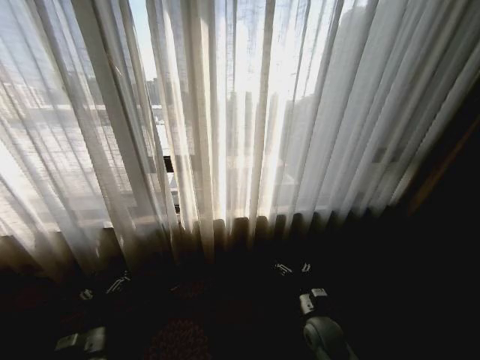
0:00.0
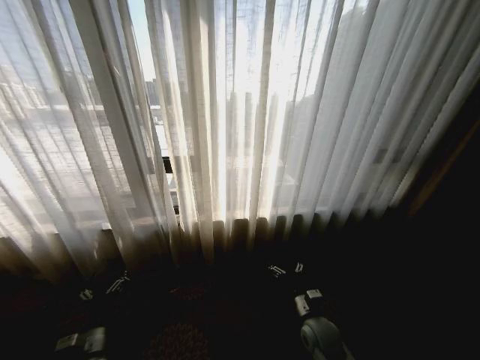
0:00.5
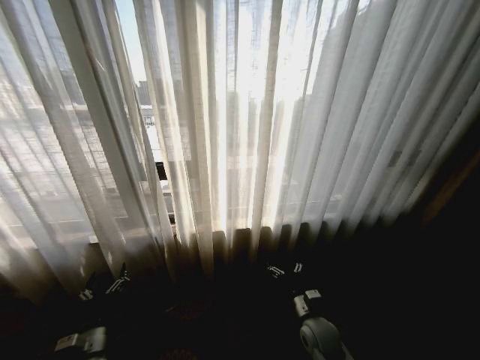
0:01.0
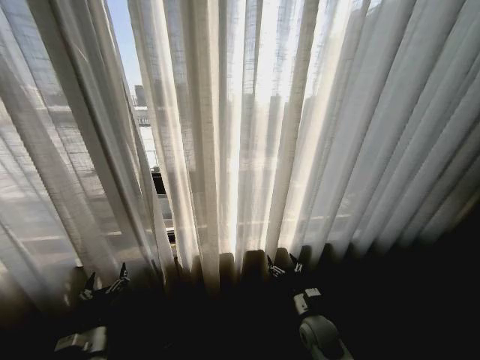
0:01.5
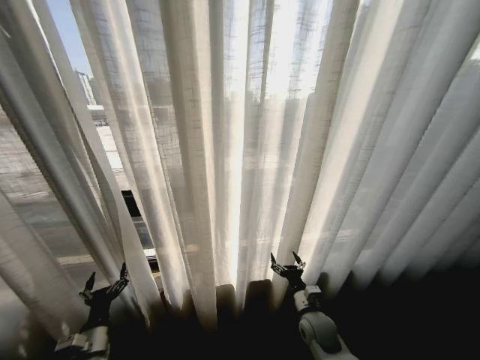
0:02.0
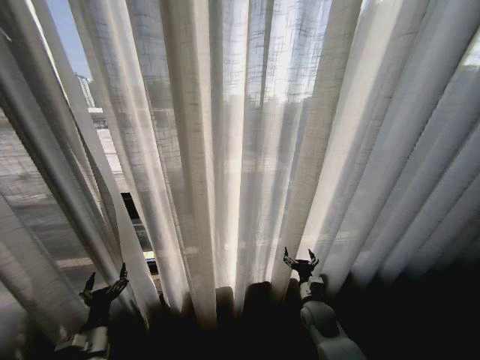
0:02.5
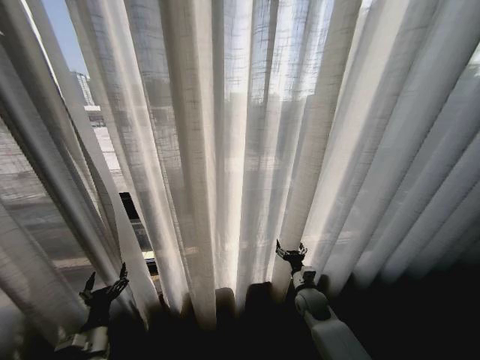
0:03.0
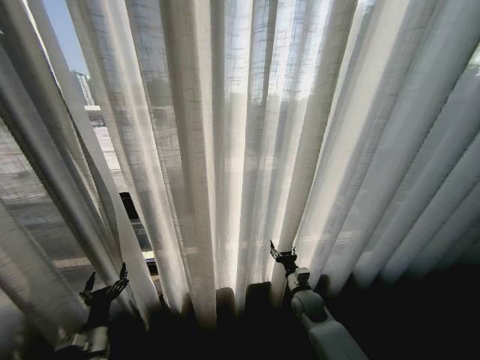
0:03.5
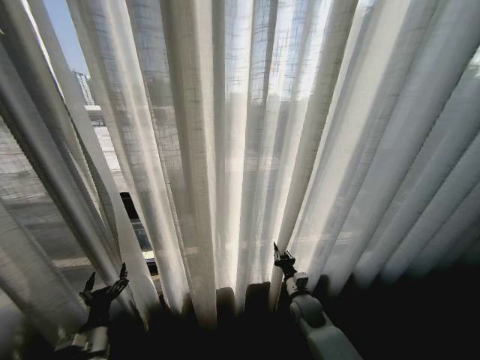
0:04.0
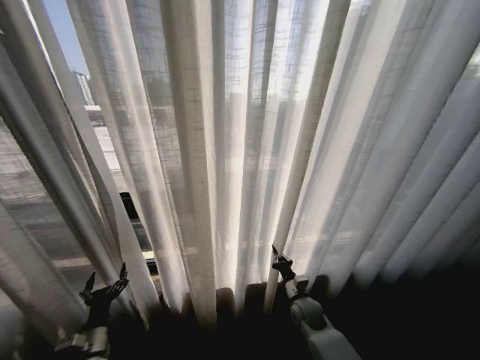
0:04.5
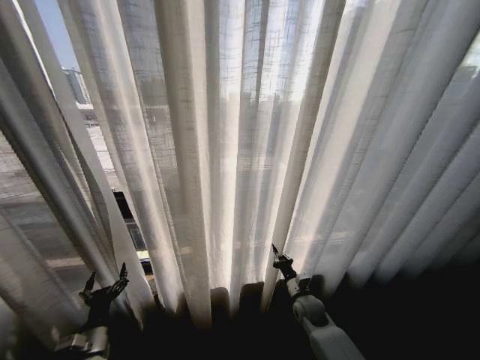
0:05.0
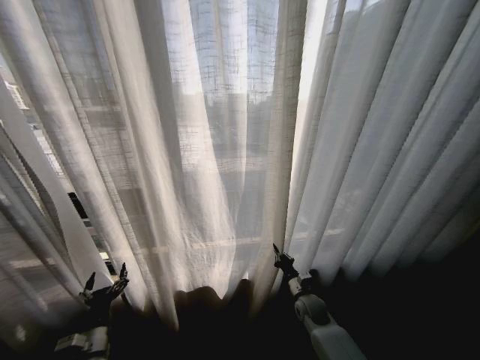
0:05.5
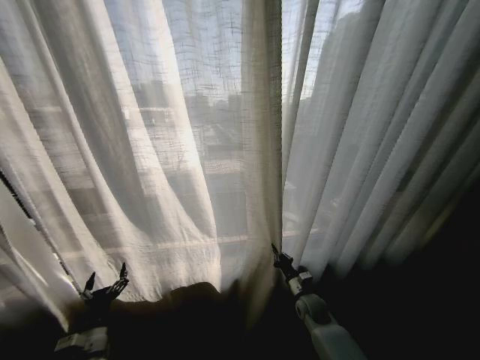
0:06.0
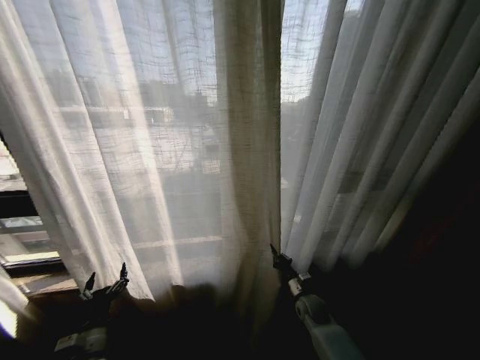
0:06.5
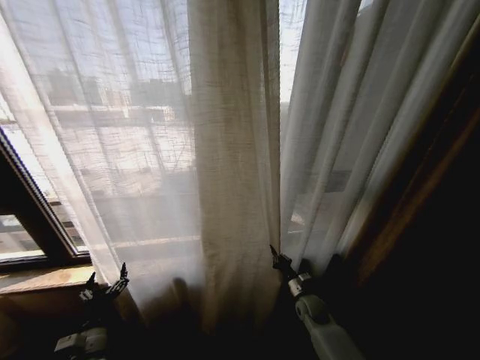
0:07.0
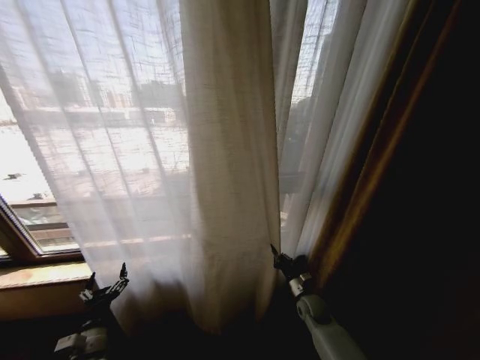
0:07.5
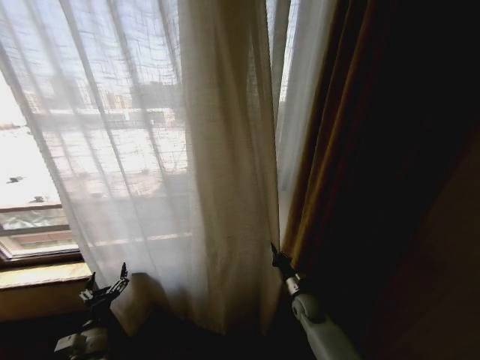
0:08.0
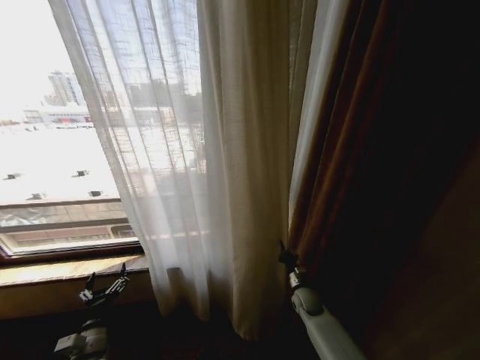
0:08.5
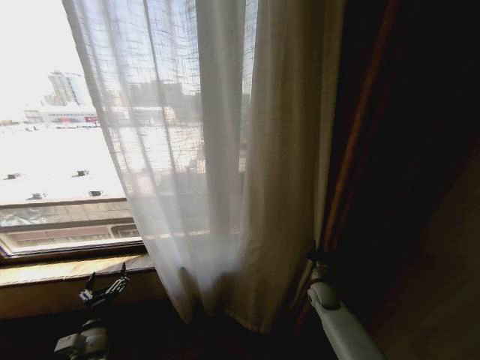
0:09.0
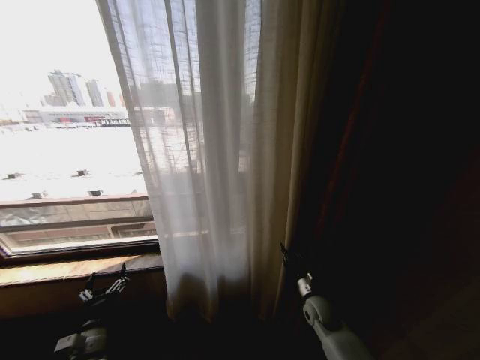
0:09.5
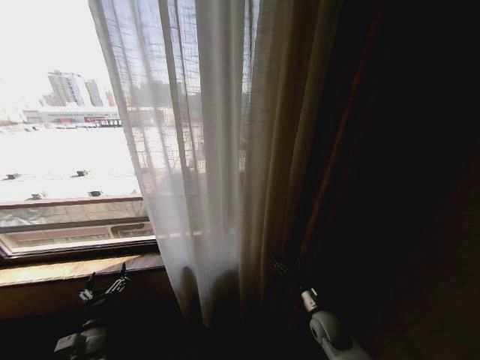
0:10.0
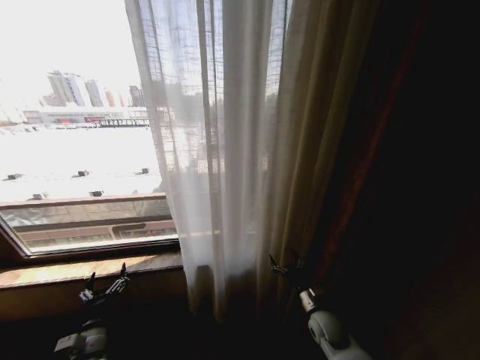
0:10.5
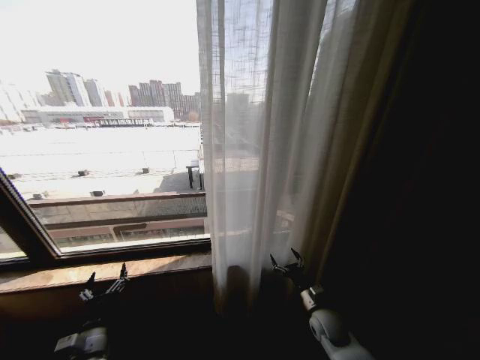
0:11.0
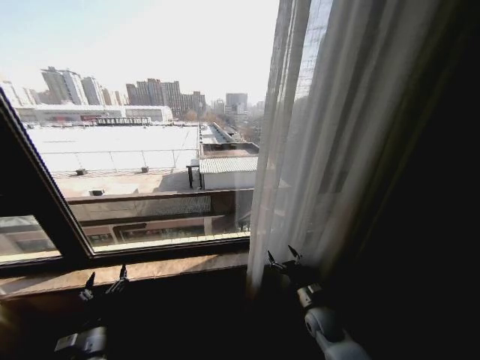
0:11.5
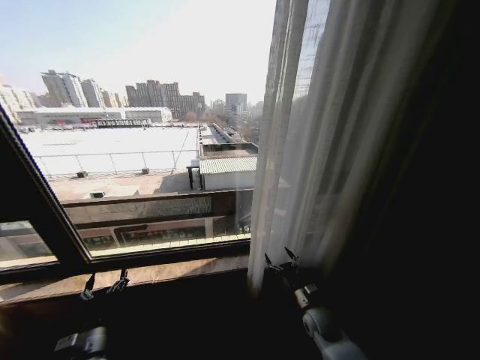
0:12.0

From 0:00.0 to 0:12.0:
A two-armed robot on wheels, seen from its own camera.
Task of the whole recording: Open the curtains by pulling them apart, changing their state from closed to fully open.
From 0:02.0 to 0:04.0: The right gripper is displaced forward by some 5 cm, and closes up.
From 0:08.0 to 0:10.0: The right gripper moves backward, about 5 cm, and opens its fingers.

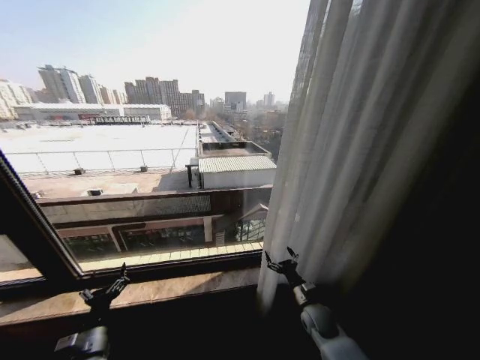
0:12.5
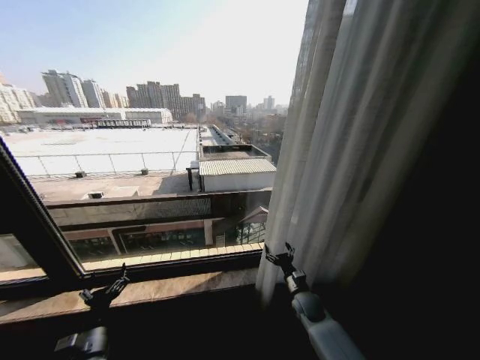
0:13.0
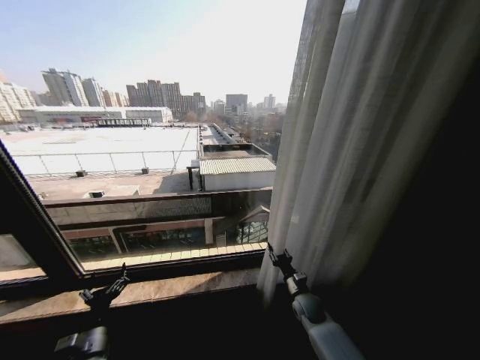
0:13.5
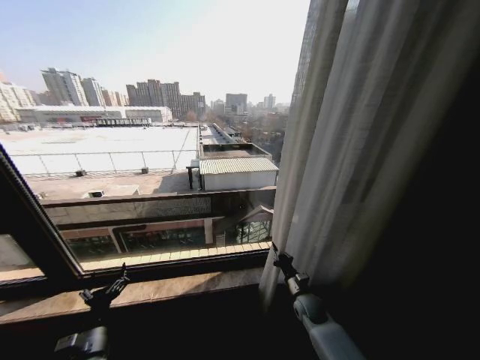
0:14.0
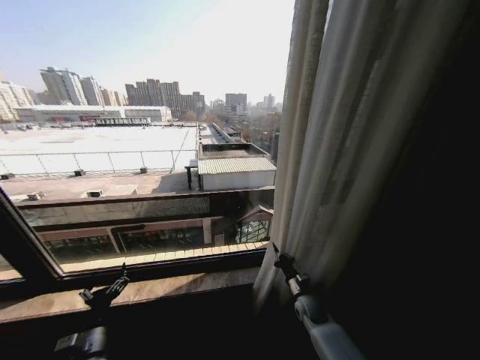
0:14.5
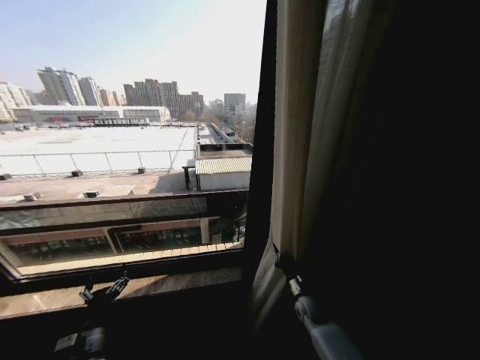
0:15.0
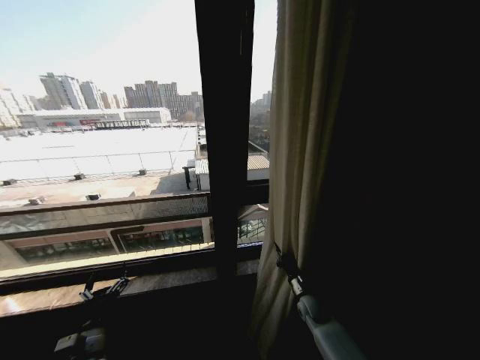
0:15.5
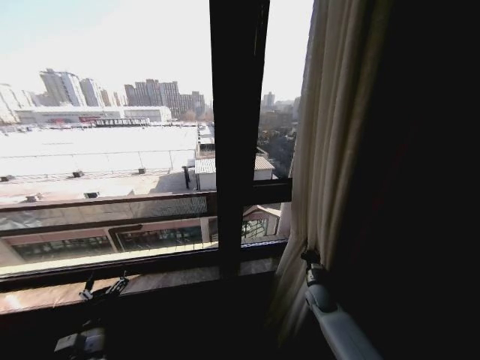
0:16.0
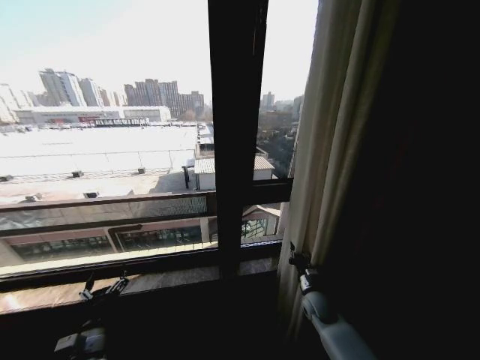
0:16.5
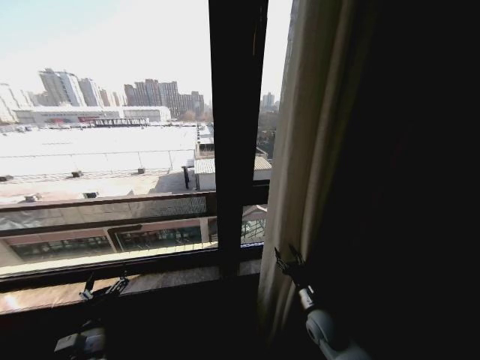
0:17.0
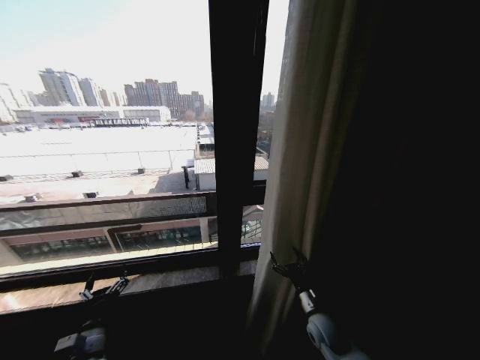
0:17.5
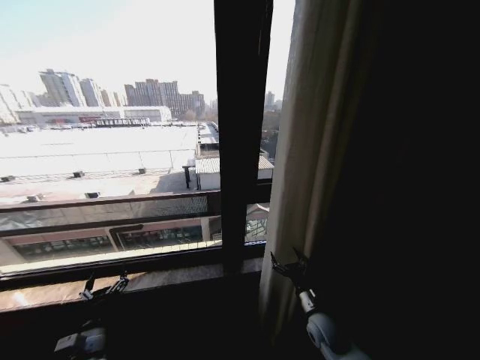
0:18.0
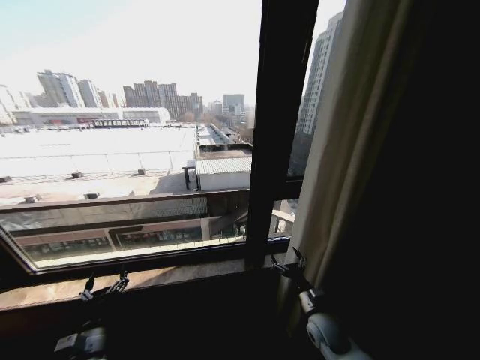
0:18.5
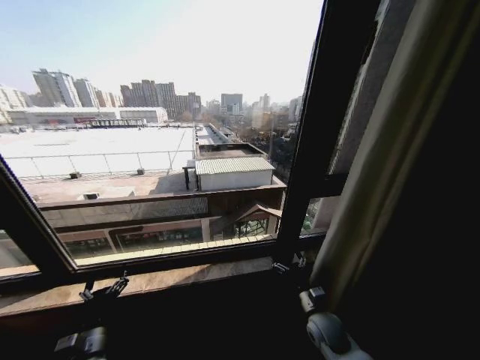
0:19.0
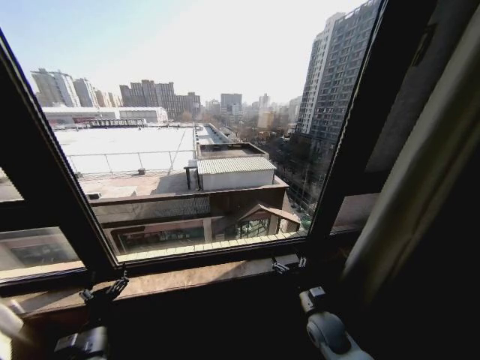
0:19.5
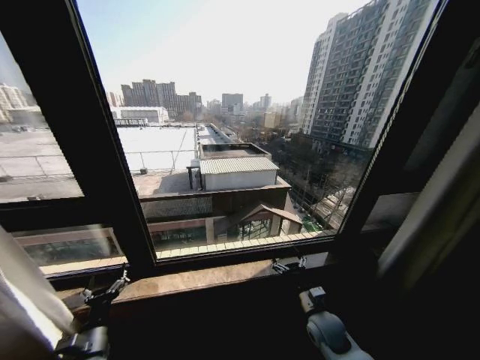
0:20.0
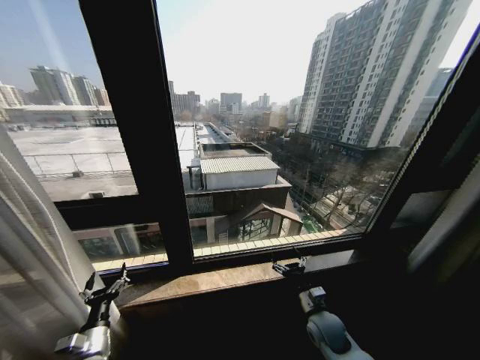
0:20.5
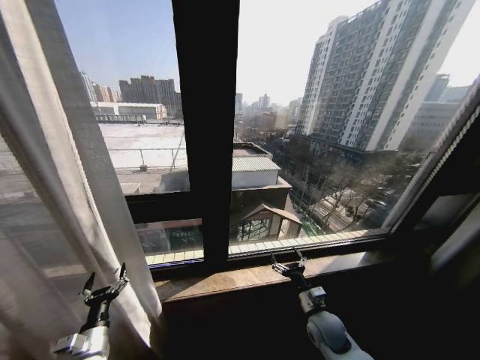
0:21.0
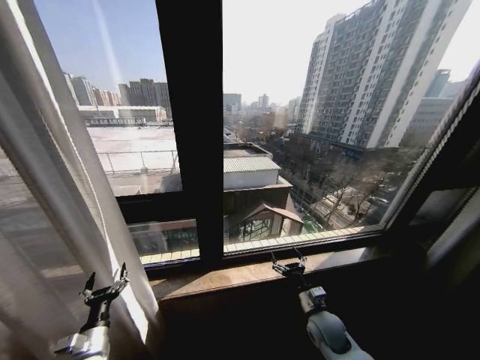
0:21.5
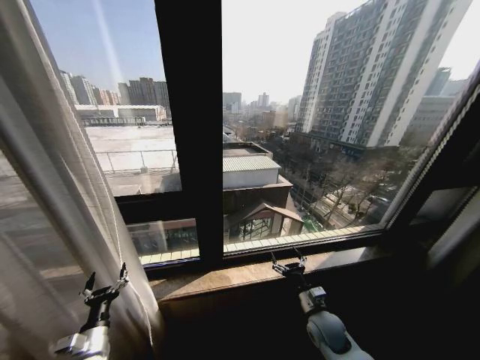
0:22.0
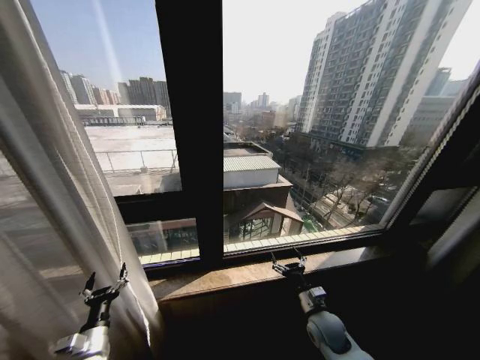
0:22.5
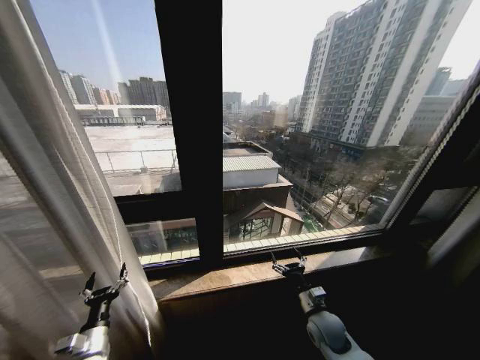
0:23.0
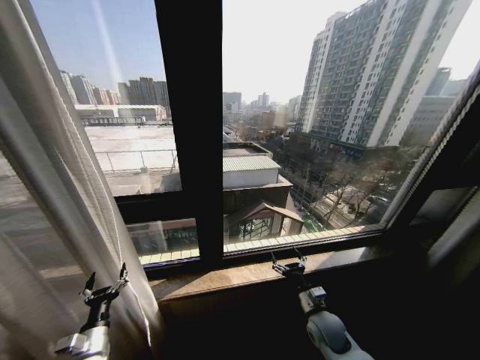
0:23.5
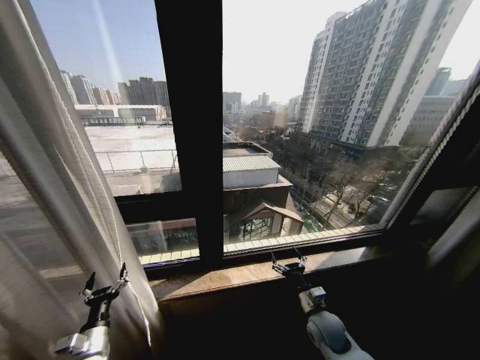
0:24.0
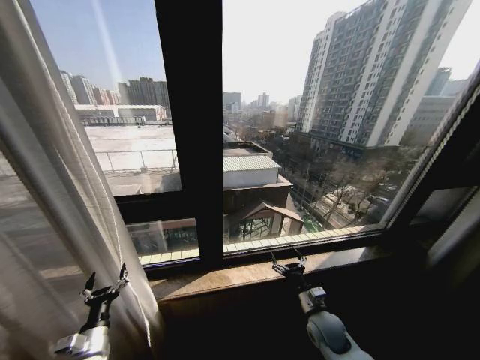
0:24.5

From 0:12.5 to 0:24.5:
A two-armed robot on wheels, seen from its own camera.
Task of the whole recording: Open the curtains by pulling them apart, changing their state from closed to fully open.
From 0:12.5 to 0:14.5: The right gripper closes.
From 0:16.5 to 0:18.5: The right gripper heads backward, covering about 5 cm, and opens.
From 0:22.5 to 0:24.5: Neither gripper changes place.

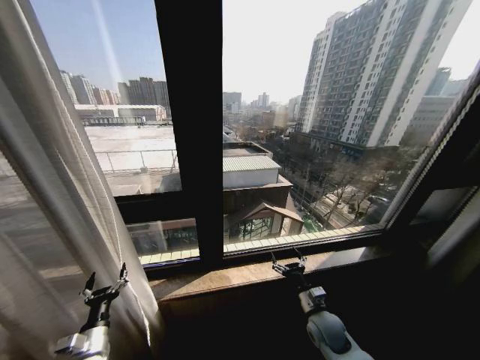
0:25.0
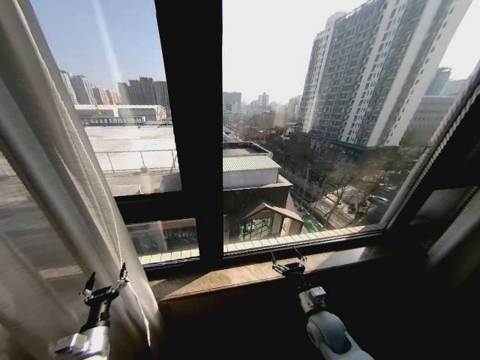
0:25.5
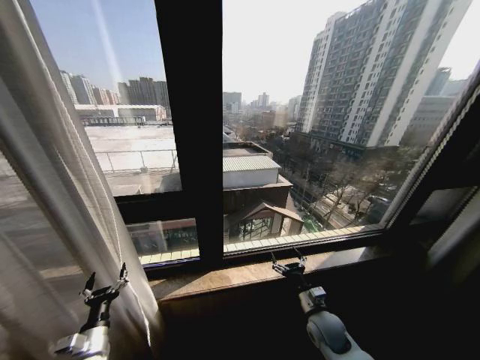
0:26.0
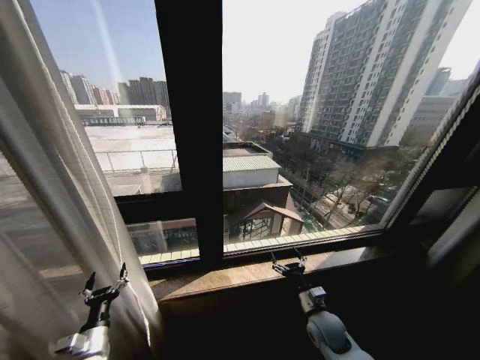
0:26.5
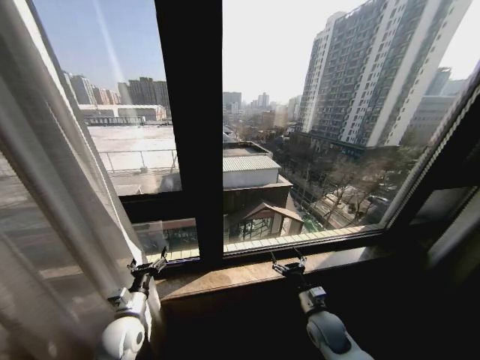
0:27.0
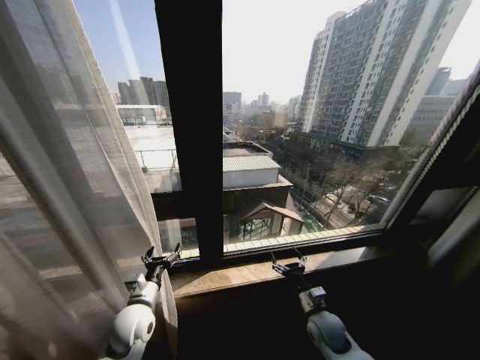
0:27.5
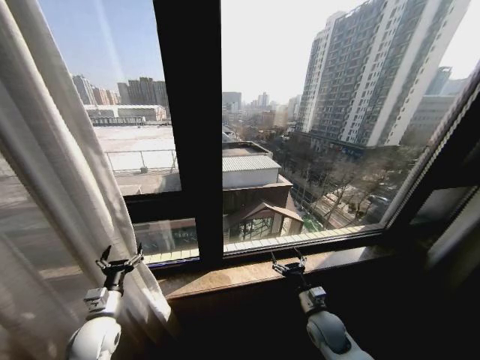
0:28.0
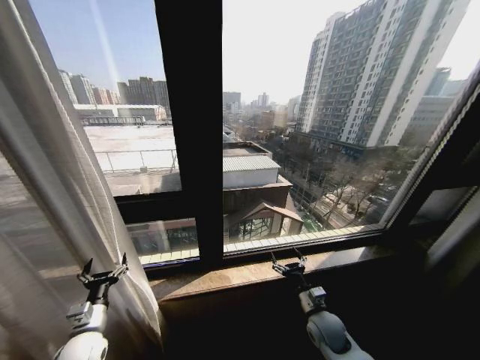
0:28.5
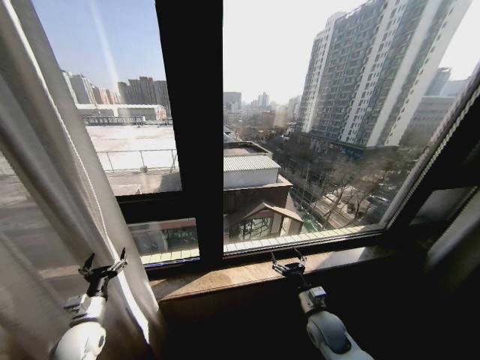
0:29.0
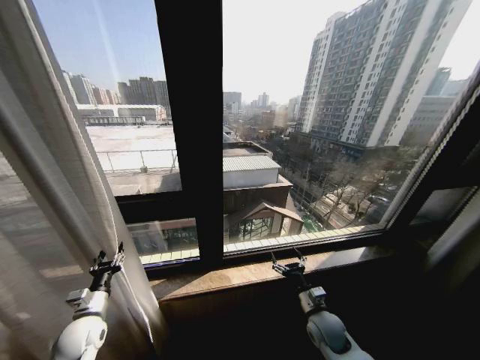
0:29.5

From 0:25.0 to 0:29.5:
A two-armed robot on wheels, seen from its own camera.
Task of the whole recording: Open the curtains by pulling them apart, changing their state from closed to fully open.
From 0:25.0 to 0:27.0: The left gripper travels to the right, forward and upward by about 10 cm.
From 0:27.0 to 0:29.5: The left gripper moves to the left, roughly 10 cm, and closes its fingers.
